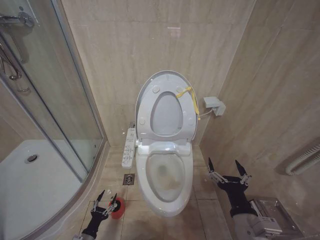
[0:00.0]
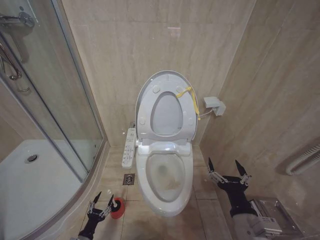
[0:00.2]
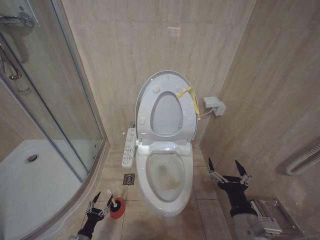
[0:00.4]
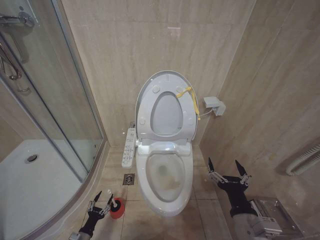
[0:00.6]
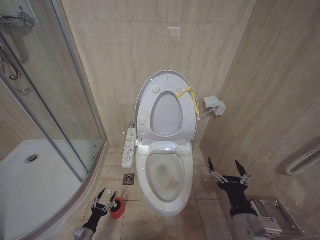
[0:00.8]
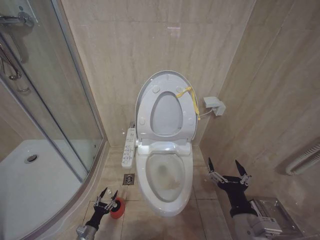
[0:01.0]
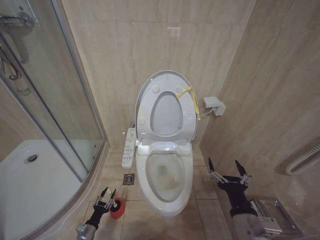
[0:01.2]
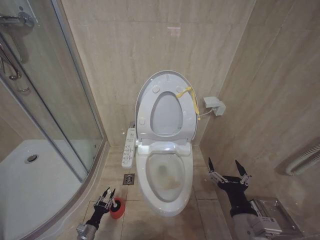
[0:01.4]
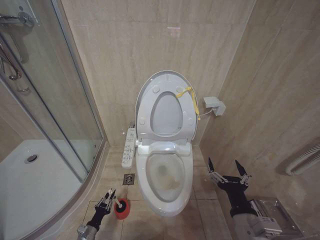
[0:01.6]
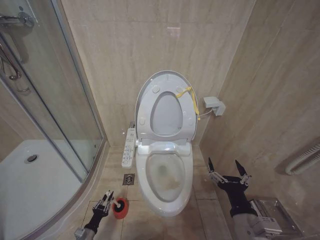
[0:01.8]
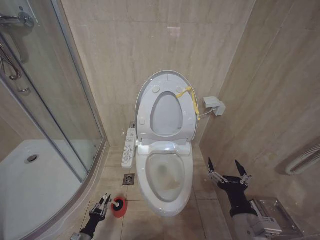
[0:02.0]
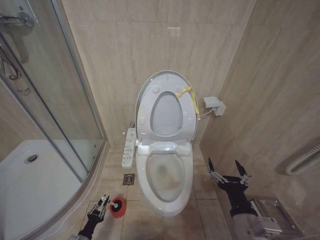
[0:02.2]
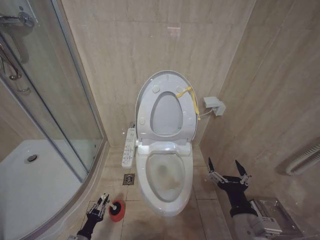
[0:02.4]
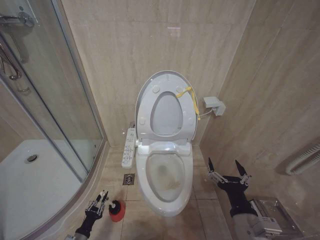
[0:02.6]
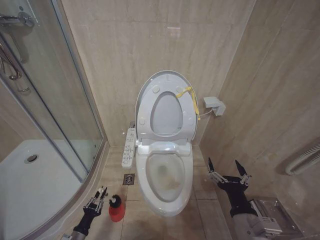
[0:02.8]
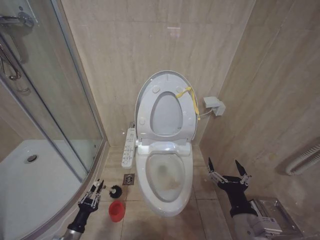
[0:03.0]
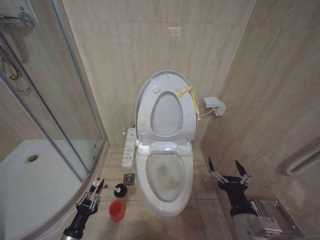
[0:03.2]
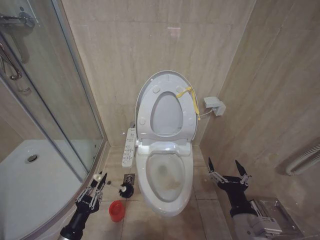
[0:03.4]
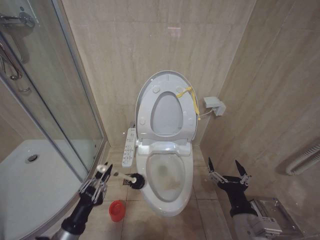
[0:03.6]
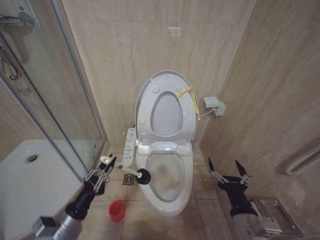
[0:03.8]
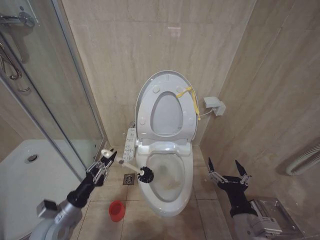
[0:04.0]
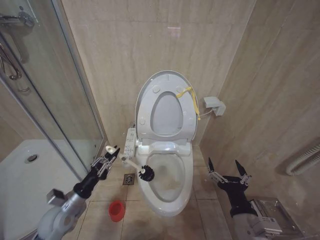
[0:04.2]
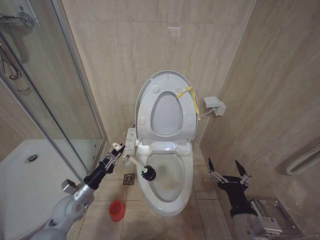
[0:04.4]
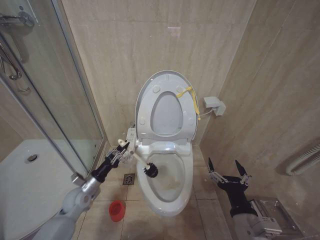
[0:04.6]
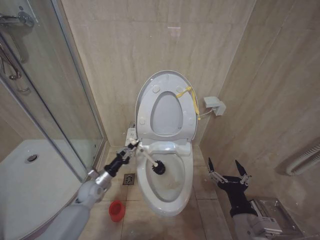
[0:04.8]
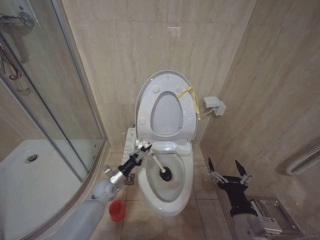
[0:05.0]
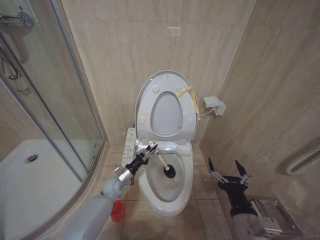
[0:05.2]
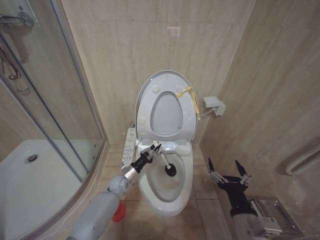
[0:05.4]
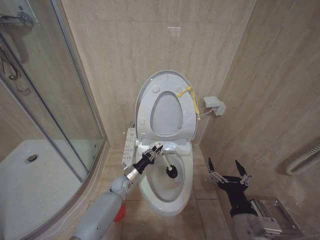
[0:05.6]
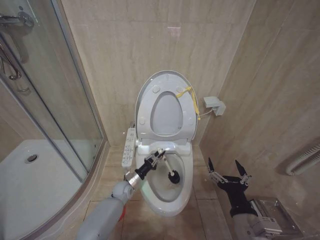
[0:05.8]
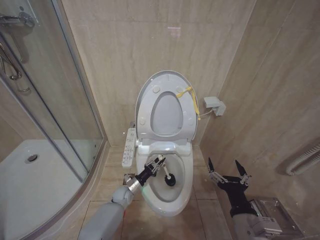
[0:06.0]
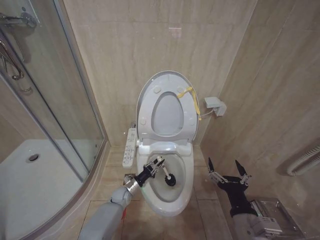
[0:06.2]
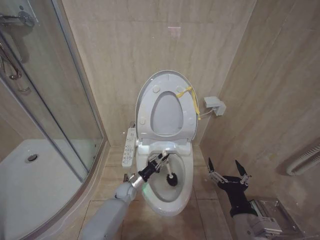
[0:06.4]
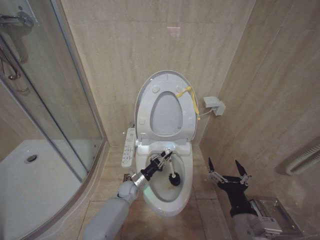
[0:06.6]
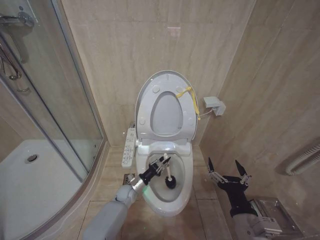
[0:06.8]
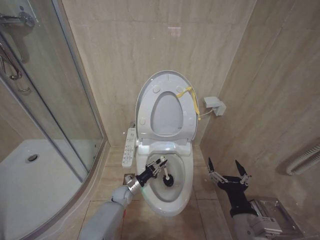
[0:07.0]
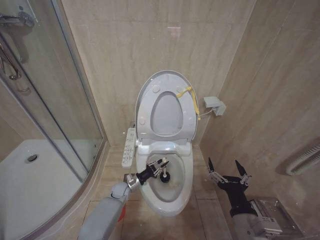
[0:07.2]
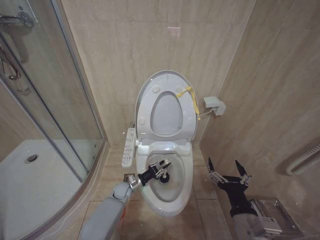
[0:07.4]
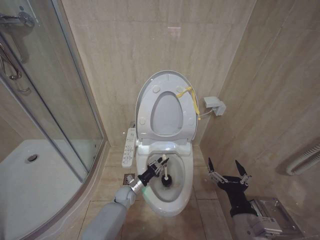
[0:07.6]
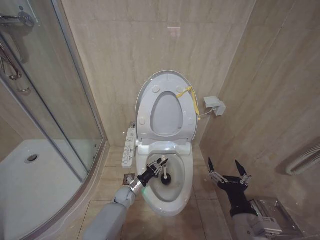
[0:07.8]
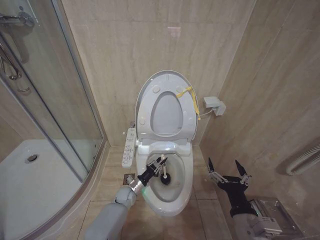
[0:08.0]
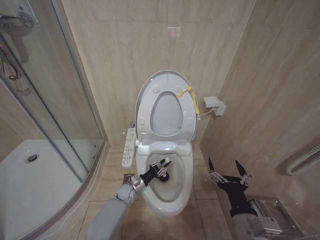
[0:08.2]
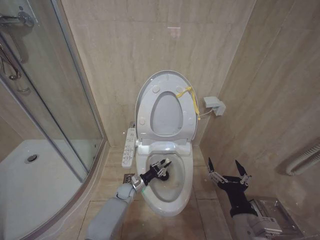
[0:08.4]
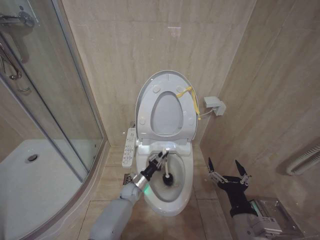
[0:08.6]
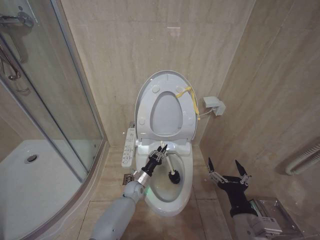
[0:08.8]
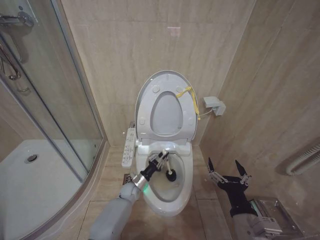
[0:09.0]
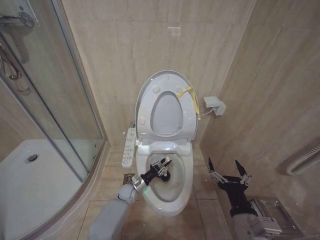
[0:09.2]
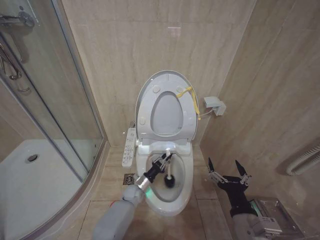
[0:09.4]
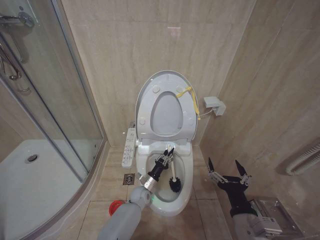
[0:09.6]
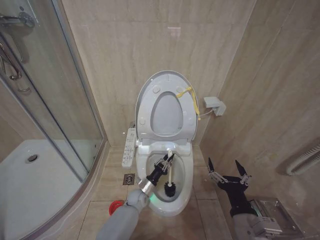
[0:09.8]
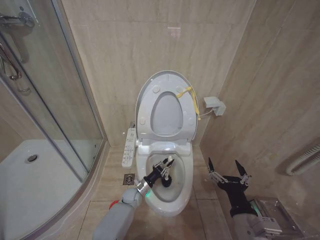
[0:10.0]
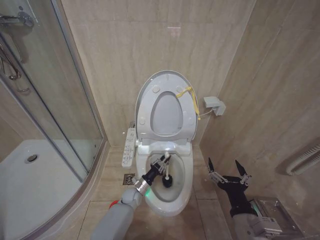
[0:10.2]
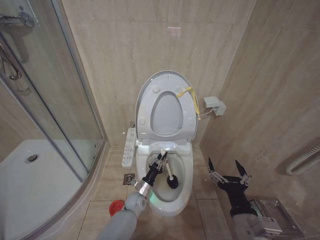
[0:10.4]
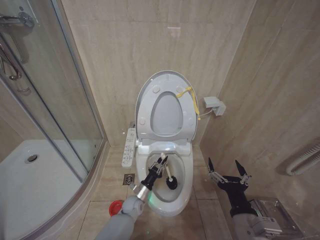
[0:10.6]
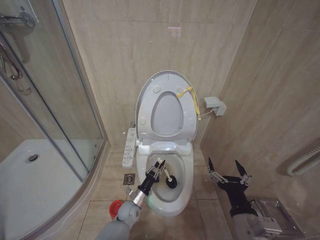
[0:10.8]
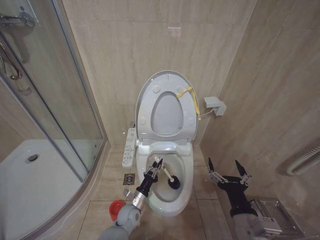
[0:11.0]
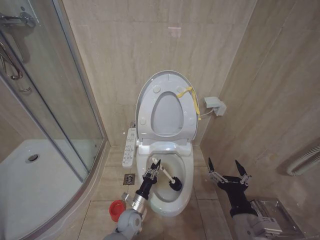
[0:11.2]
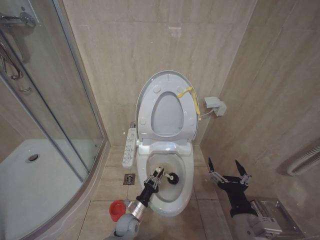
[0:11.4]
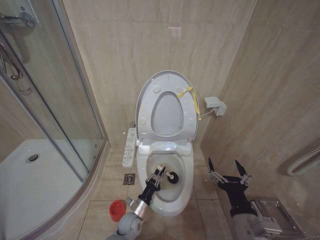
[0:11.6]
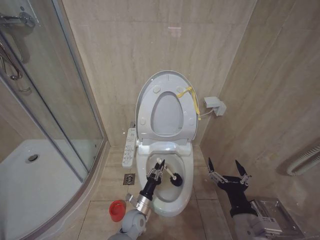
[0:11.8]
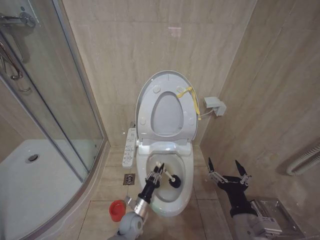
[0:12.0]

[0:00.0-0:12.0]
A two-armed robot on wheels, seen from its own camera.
Task of the whole recording: Open the toilet lid, clean the toilet bowl with a toilet brush, close the toilet lid, and flush.
0:00.0 to 0:01.6: The left gripper moves approximately 5 cm, and closes.
0:01.6 to 0:03.0: The left gripper heads upward, covering about 10 cm.
0:03.0 to 0:04.4: The left gripper is displaced upward and forward by roughly 20 cm.
0:04.4 to 0:06.0: The left gripper is displaced to the right, downward and forward by approximately 25 cm.
0:09.0 to 0:10.4: The left gripper shifts by some 5 cm.
0:10.4 to 0:12.0: The left gripper is displaced backward by some 10 cm.

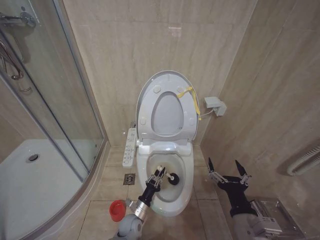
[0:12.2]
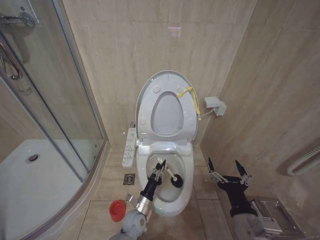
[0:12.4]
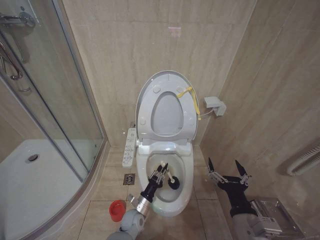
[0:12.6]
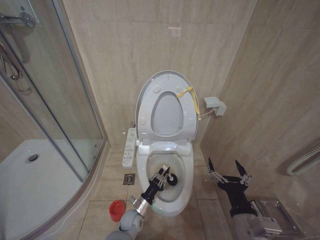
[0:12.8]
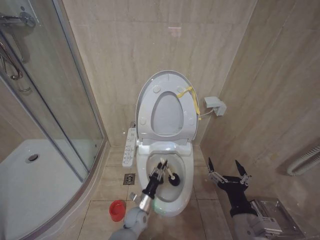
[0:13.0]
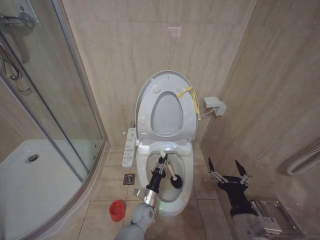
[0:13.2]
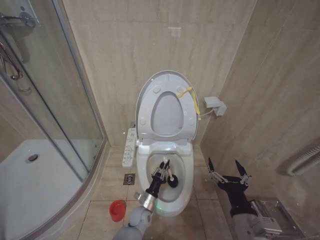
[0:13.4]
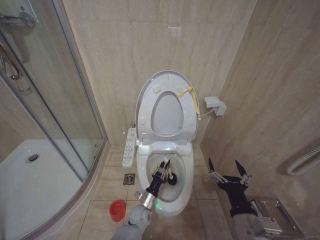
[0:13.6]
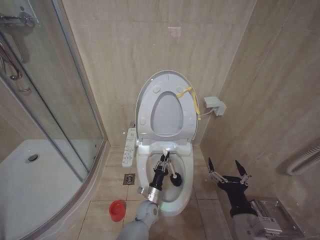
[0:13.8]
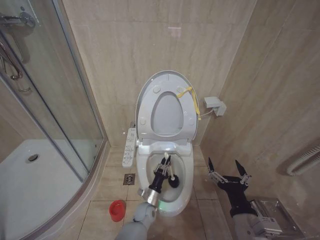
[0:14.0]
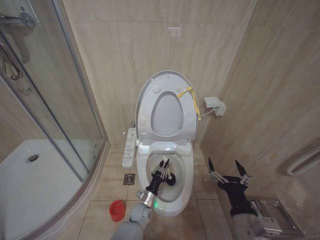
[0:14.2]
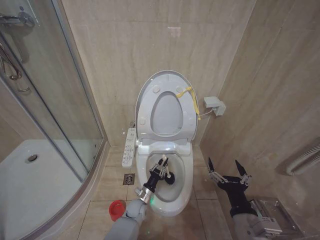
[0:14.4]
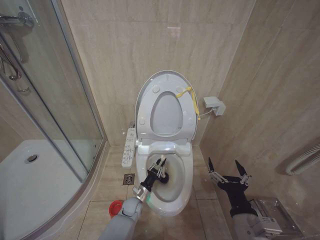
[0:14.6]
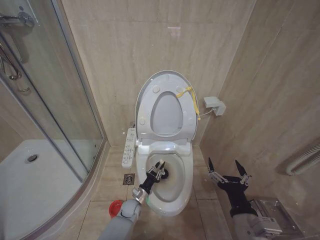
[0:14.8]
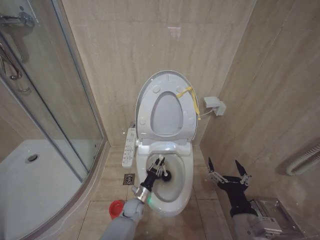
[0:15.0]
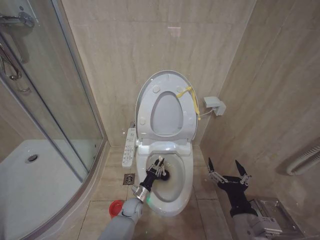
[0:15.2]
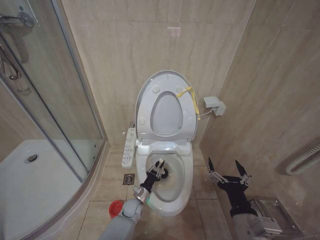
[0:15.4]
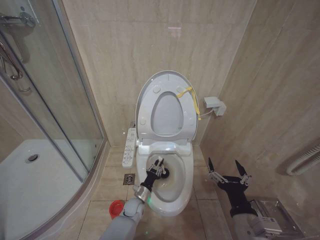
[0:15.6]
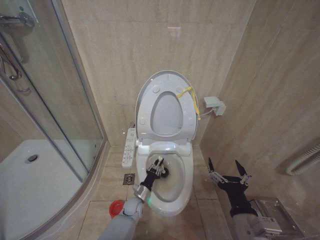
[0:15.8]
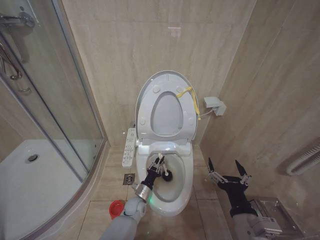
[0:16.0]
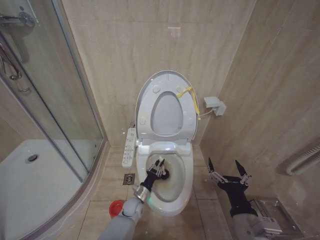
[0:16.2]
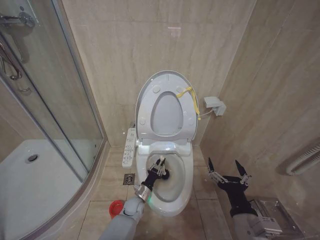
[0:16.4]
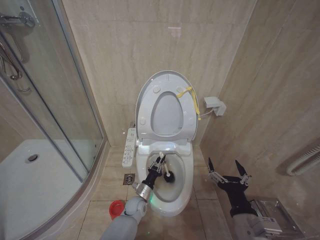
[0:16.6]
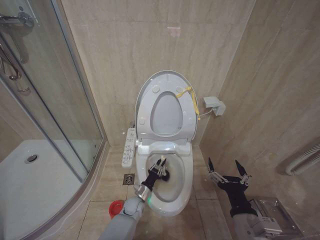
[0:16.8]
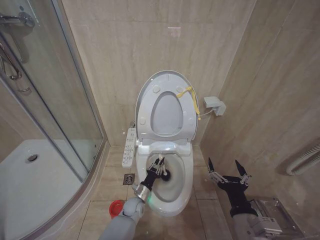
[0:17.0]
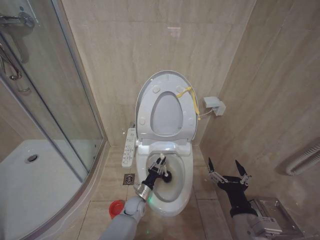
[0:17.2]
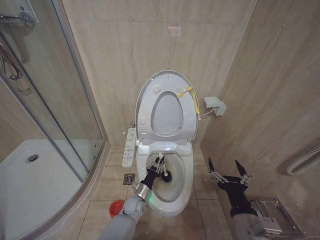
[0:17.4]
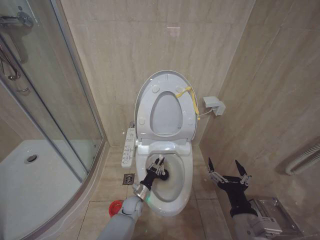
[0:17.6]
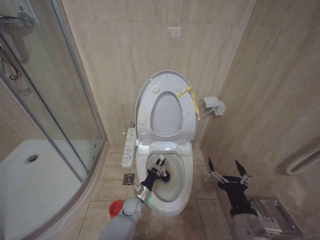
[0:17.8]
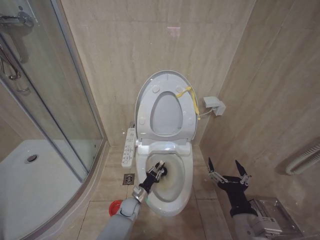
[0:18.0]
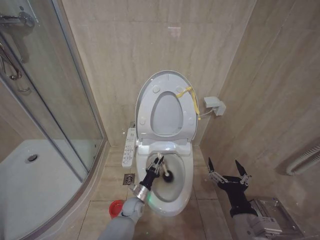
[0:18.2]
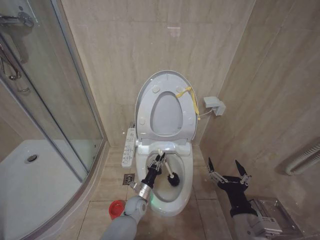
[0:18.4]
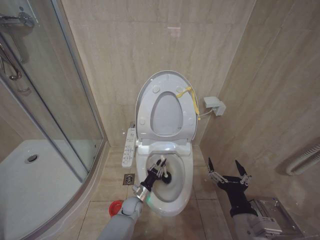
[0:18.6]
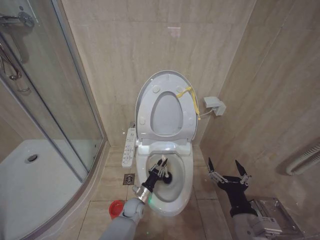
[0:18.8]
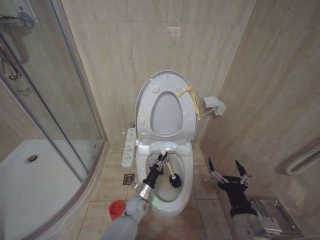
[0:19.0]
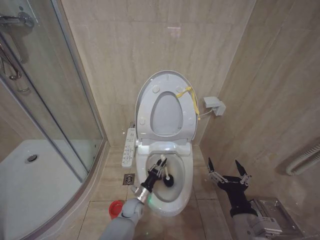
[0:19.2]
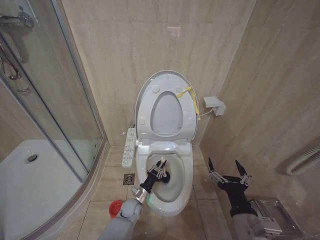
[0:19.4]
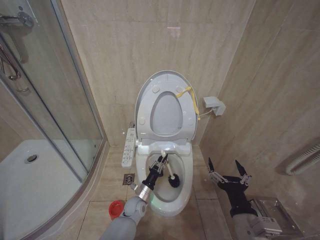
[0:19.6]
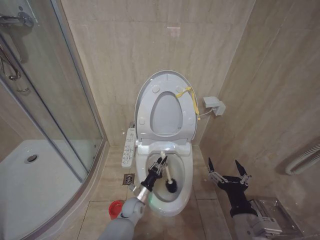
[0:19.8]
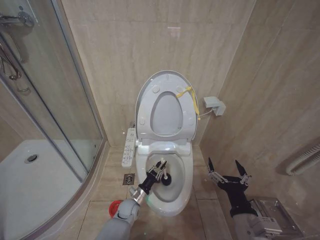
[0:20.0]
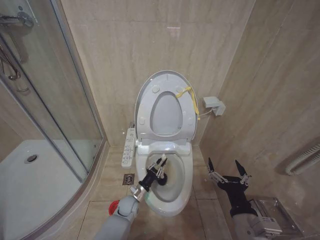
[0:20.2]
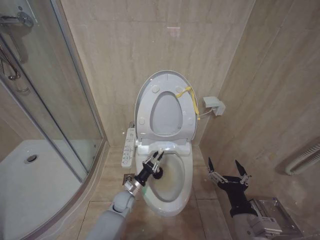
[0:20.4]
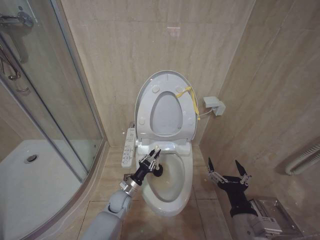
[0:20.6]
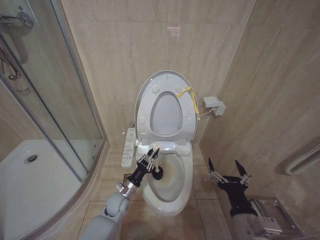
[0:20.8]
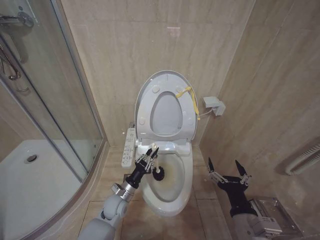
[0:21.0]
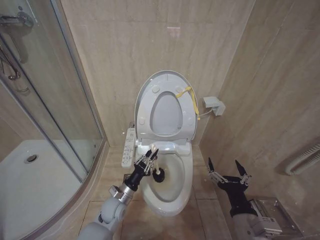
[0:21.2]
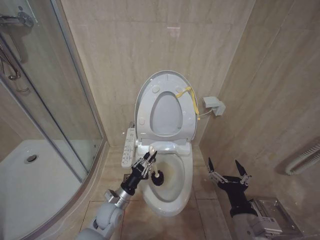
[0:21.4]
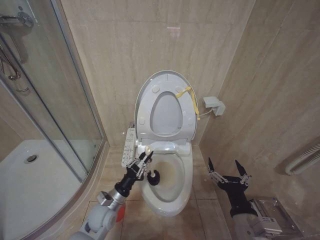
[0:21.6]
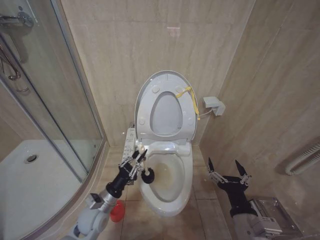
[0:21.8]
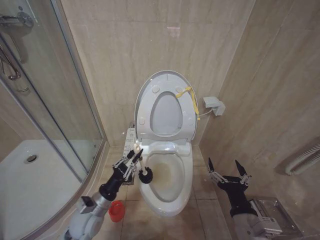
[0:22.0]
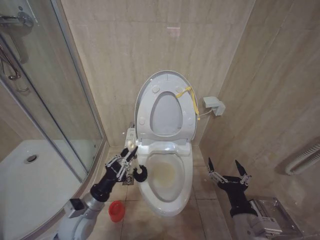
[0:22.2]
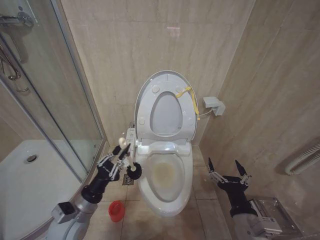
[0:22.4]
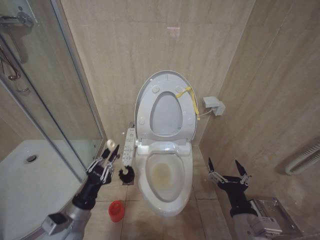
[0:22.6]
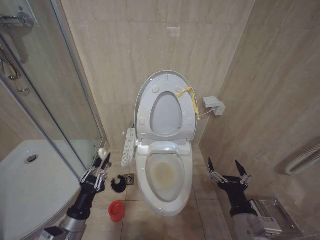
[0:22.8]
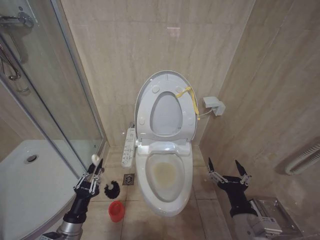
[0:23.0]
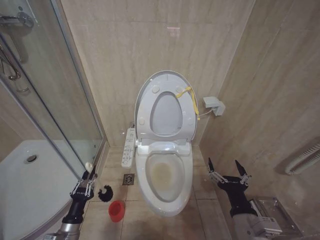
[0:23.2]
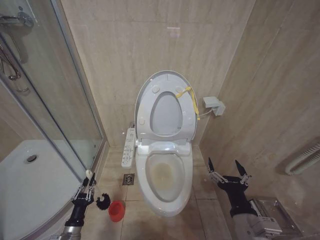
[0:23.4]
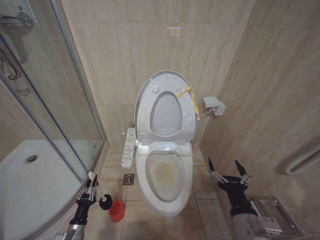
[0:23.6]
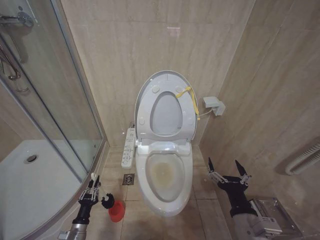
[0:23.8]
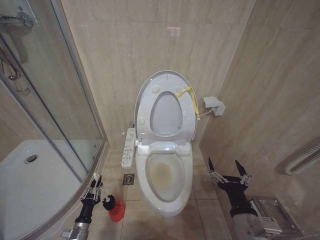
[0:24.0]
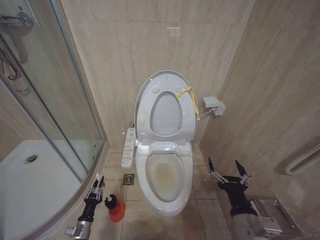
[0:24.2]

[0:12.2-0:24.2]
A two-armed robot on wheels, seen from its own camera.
Task of the whole recording: Open the toilet lid, clean the toilet bowl with a toilet brush, close the toilet lid, and flush.
0:12.2 to 0:13.8: The left gripper shifts some 5 cm to the right.
0:13.8 to 0:15.2: The left gripper shifts approximately 5 cm to the left.
0:19.8 to 0:21.2: The left gripper goes approximately 10 cm upward and to the left.
0:21.2 to 0:22.6: The left gripper shifts approximately 20 cm upward, backward and to the left.
0:22.6 to 0:24.2: The left gripper heads downward, covering about 25 cm.
